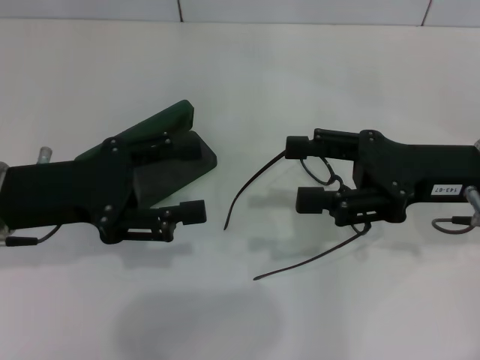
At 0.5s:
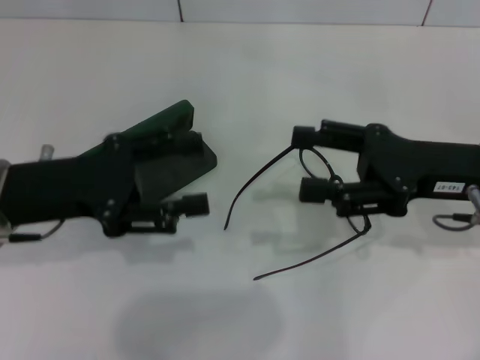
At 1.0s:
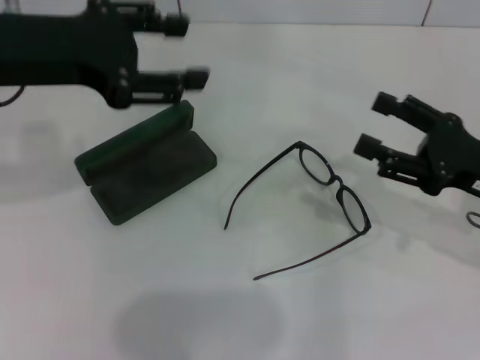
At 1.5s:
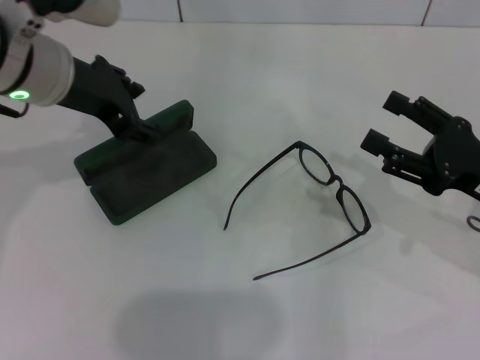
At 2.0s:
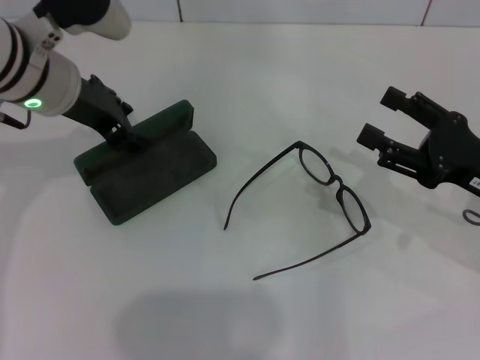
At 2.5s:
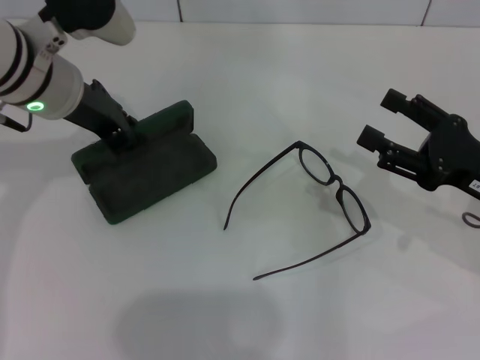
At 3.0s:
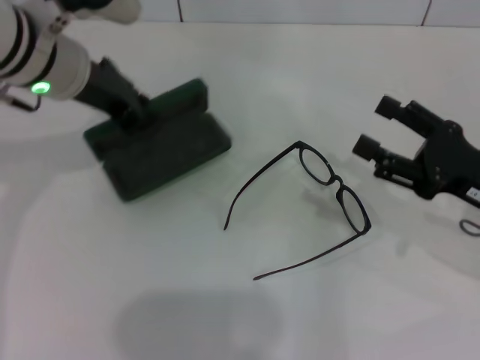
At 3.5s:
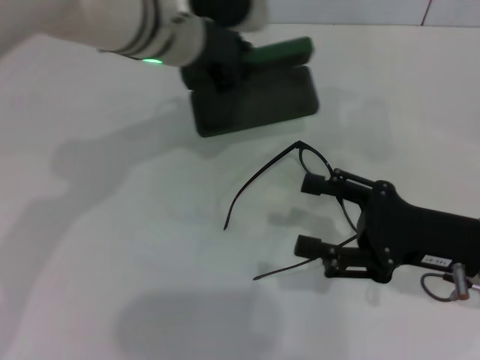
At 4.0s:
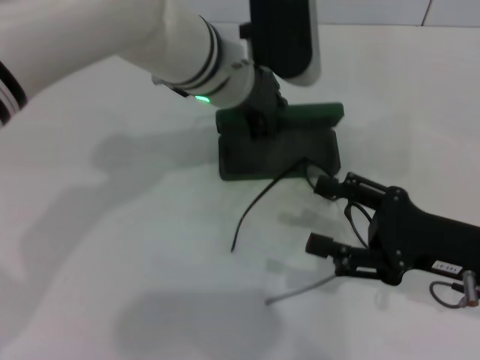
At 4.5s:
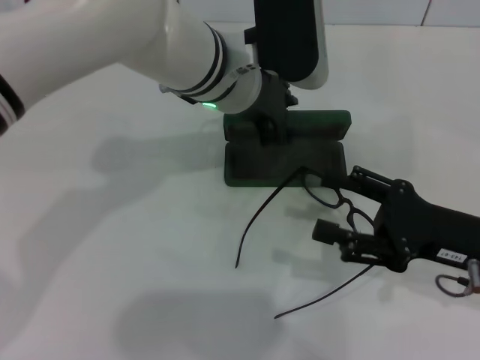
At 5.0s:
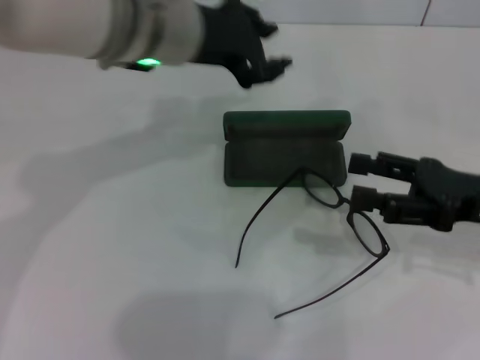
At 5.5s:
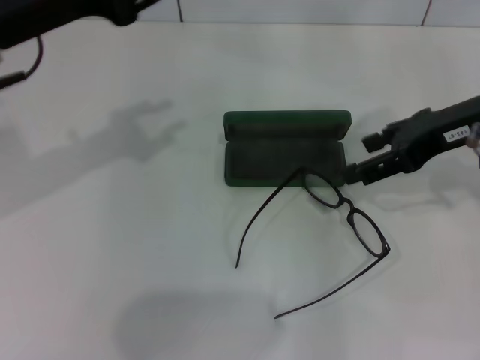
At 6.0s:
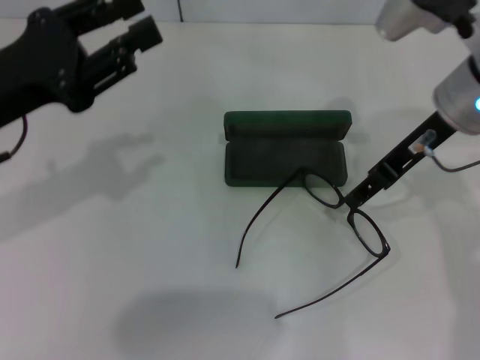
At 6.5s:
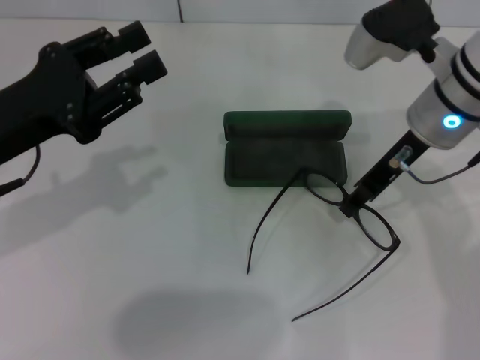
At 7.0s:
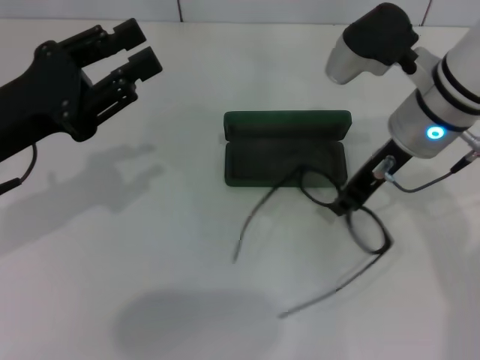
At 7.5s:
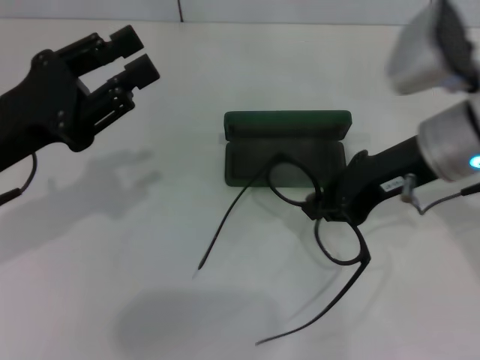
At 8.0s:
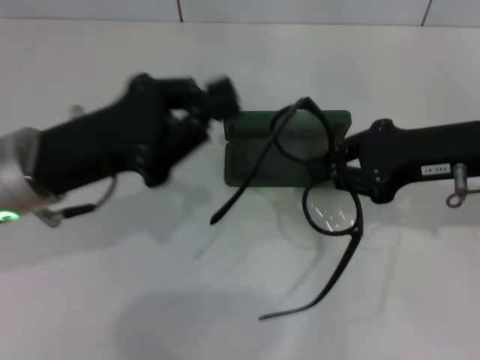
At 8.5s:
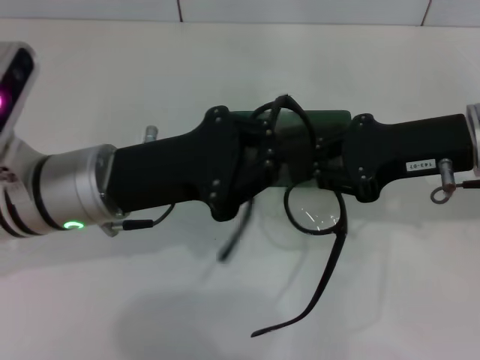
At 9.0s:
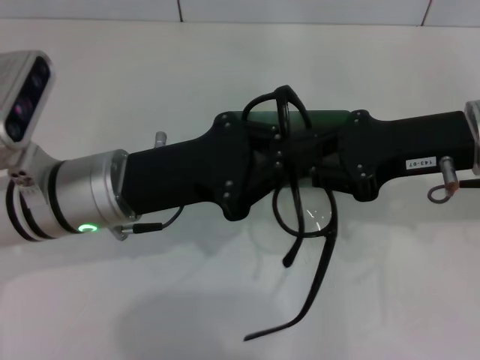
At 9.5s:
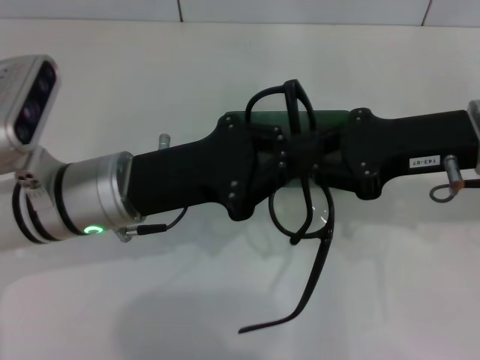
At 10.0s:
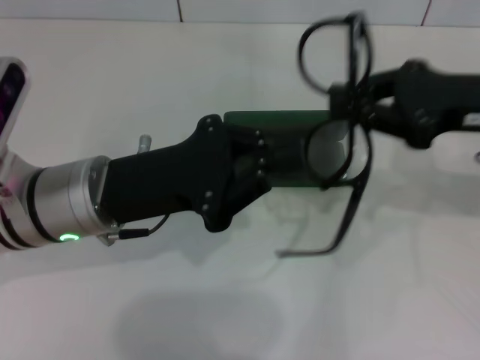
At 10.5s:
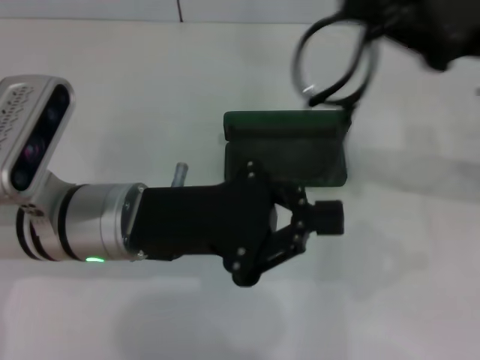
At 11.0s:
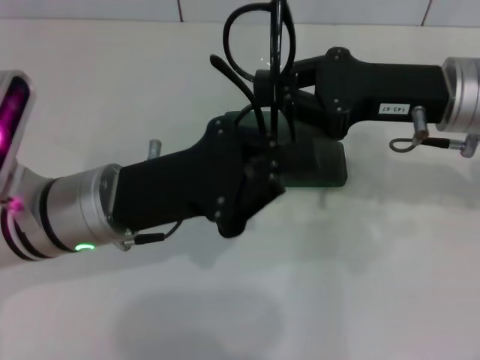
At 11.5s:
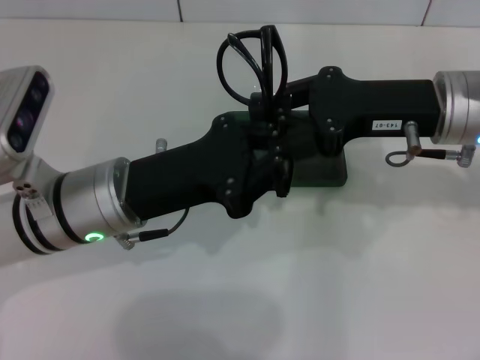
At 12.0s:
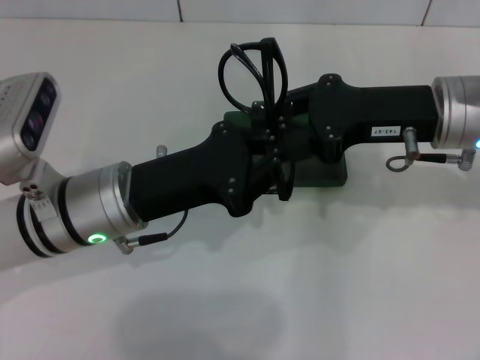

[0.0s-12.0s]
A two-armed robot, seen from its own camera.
Step, 0.0s to 2.0s: Grab the glasses case with your left hand.
Step, 3.0s to 4.5s: Place the glasses case in the center of the table with your left hand.
Step, 5.0s to 6.5s: Grab the eyeglass frame with your right hand.
Step, 7.5s to 11.0s: Fold the frame with your left hand.
0.0s to 2.0s: The left gripper goes roughly 15 cm forward, to the right and upward, while the right gripper is displaced to the right and downward by roughly 5 cm.
2.0s to 4.0s: The right gripper shifts by approximately 5 cm, while the left gripper moves to the right, approximately 15 cm, and closes.
4.0s to 6.0s: The left gripper travels to the left and backward by approximately 25 cm. The right gripper heads forward, upward and to the left, covering roughly 20 cm.
6.0s to 8.0s: The left gripper moves to the right, approximately 5 cm; the right gripper is displaced backward by roughly 5 cm, and closes.
10.0s to 12.0s: The right gripper goes some 5 cm to the left.

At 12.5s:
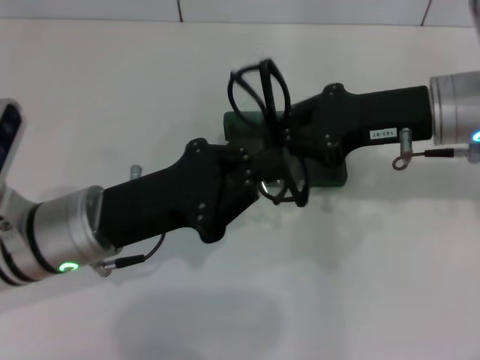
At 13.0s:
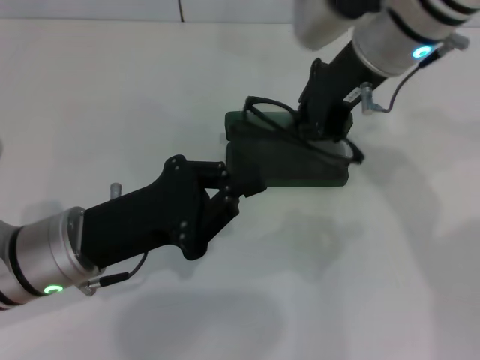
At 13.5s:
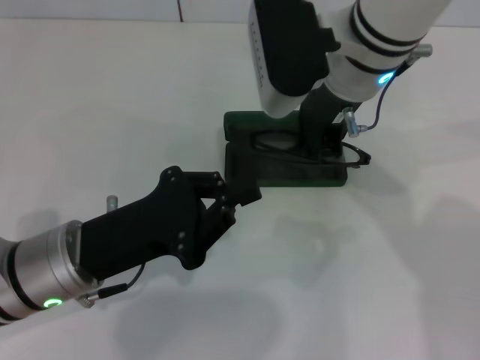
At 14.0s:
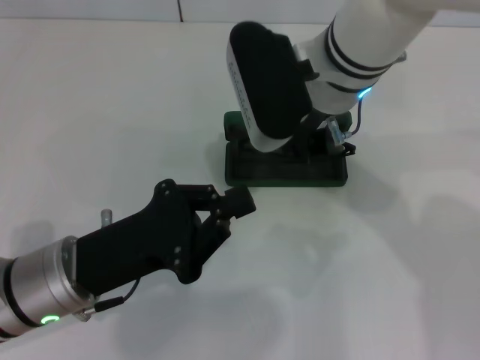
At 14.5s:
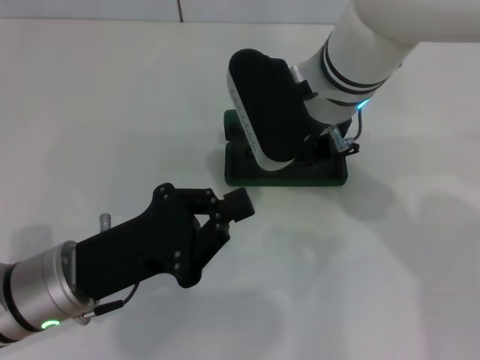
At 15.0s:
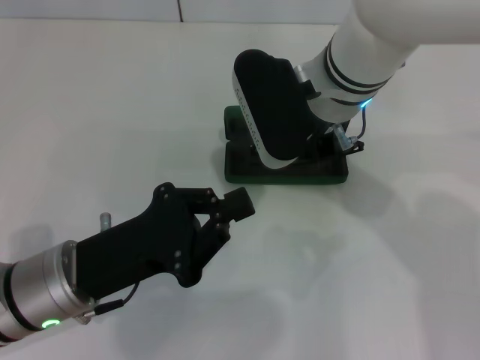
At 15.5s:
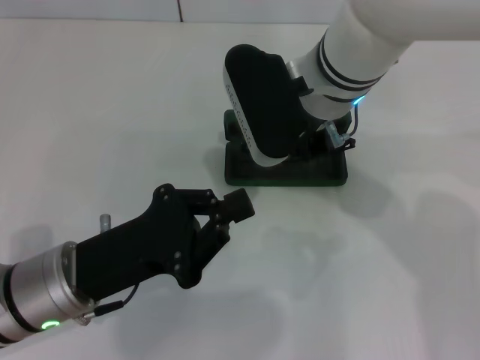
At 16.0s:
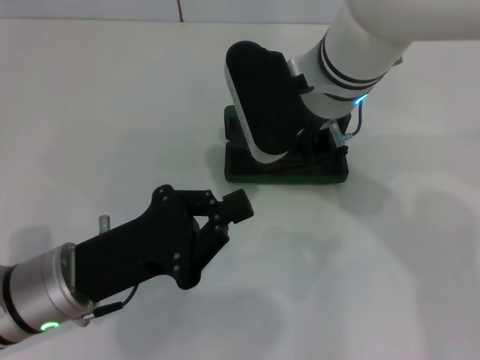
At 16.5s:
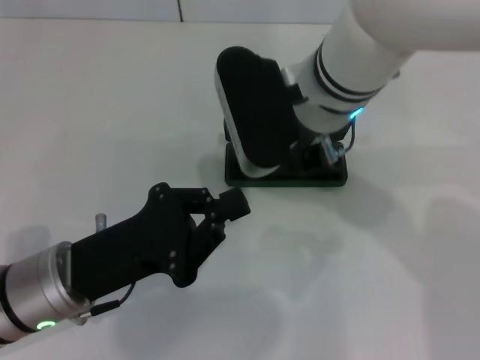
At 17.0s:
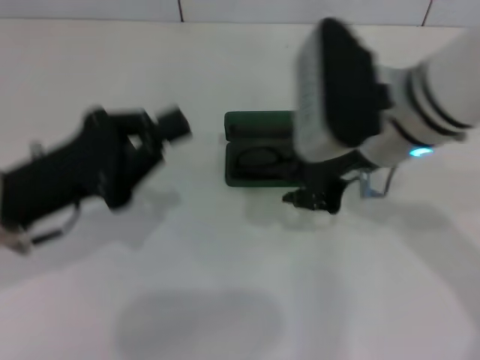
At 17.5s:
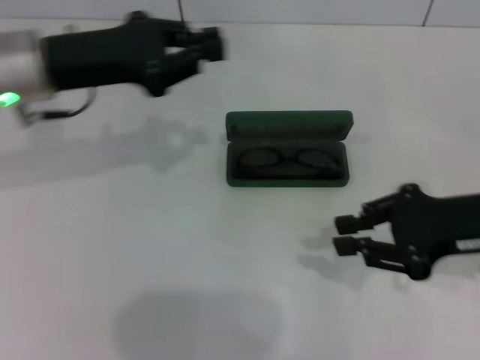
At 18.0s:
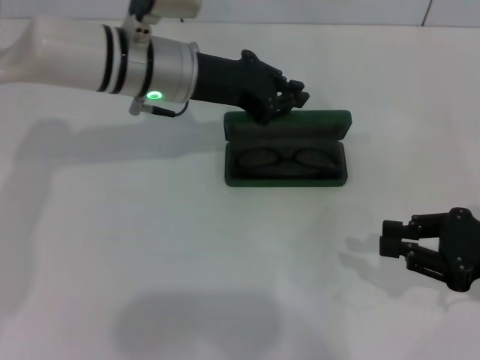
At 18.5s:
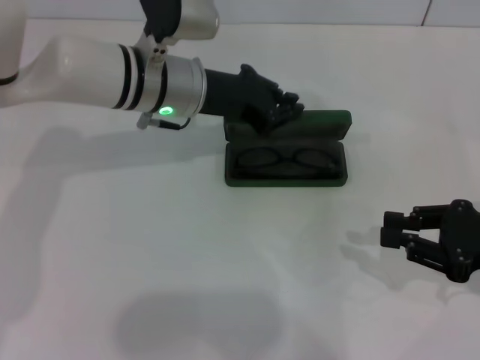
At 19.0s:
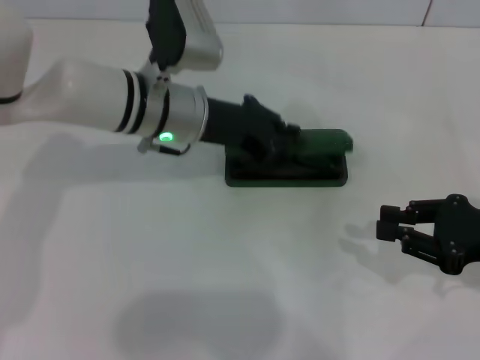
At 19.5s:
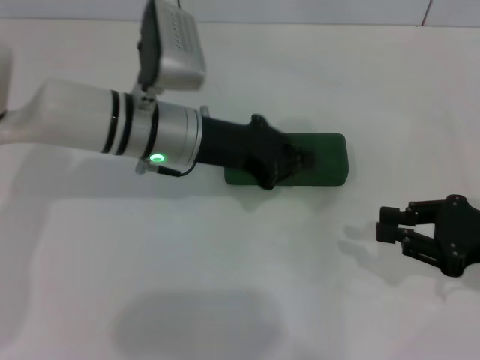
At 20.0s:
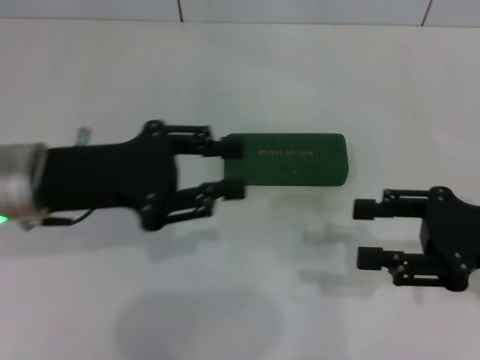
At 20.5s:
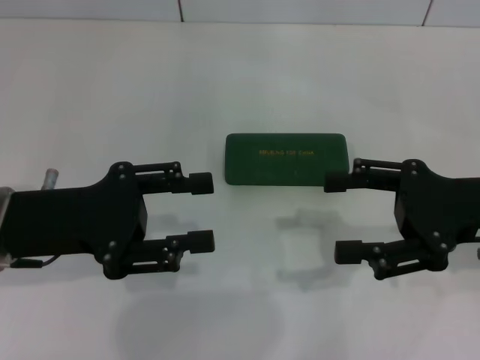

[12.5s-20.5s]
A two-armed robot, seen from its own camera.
Step, 12.5s to 16.0s: Put the glasses into the case with your right hand.
Step, 16.5s to 19.0s: Close the glasses case with your left hand.
12.5s to 14.5s: The left gripper ends up approximately 5 cm from where it was, while the right gripper goes about 15 cm to the left.
14.5s to 16.5s: There are only small adjustments of the grippers.
16.5s to 18.5s: The left gripper goes roughly 20 cm forward and to the right. Meanwhile the right gripper shifts approximately 30 cm to the right and backward.
18.5s to 20.5s: The left gripper heads backward and to the left, covering roughly 20 cm, and opens its fingers; the right gripper is displaced to the left and upward by roughly 5 cm, and opens.

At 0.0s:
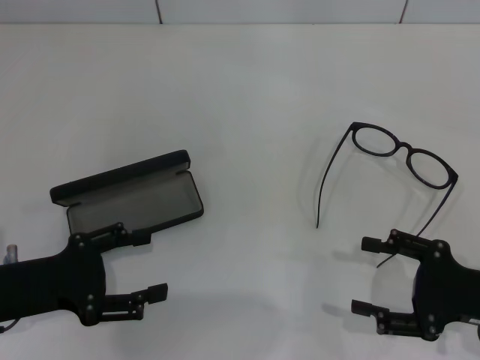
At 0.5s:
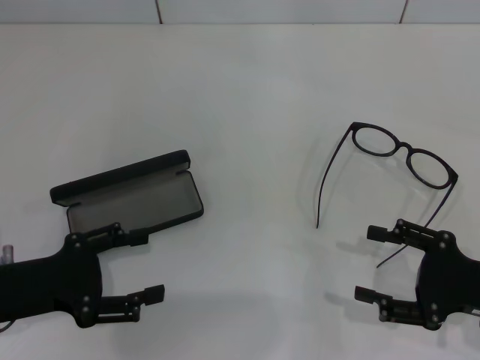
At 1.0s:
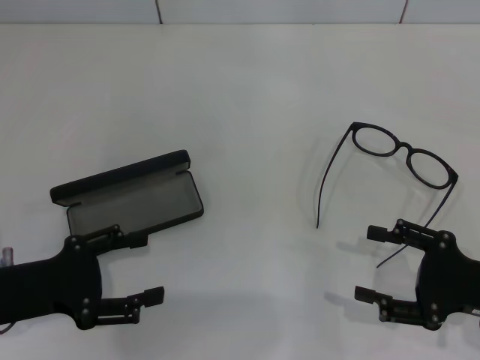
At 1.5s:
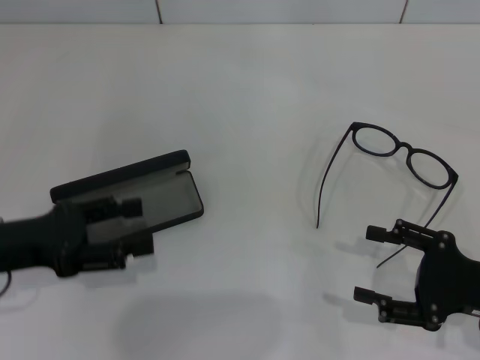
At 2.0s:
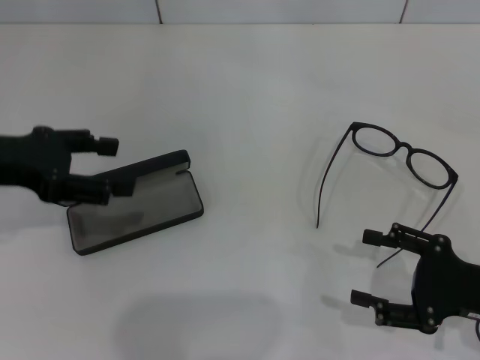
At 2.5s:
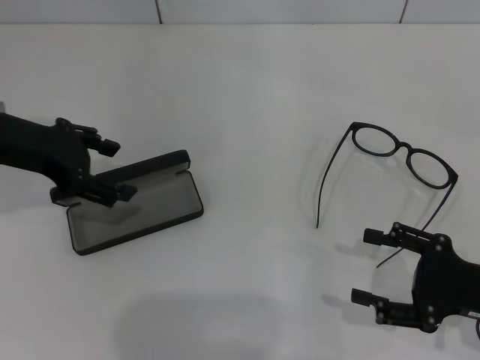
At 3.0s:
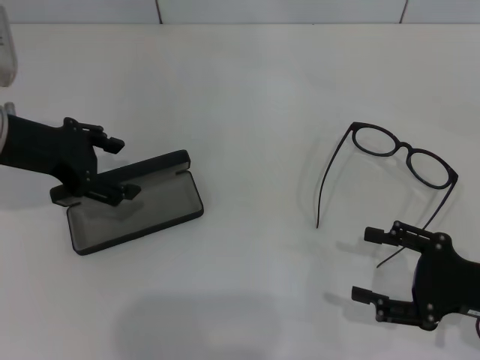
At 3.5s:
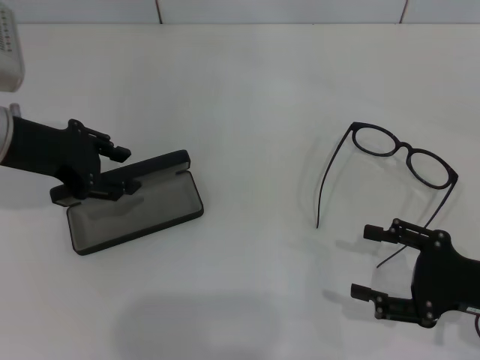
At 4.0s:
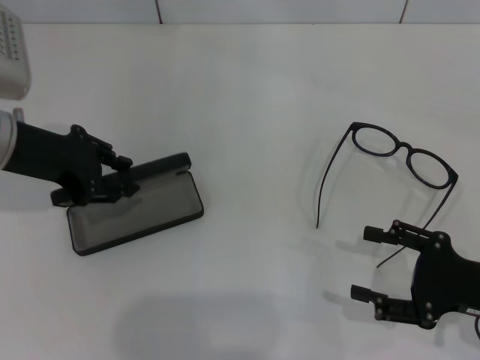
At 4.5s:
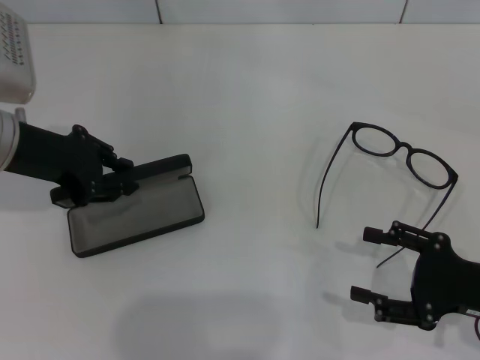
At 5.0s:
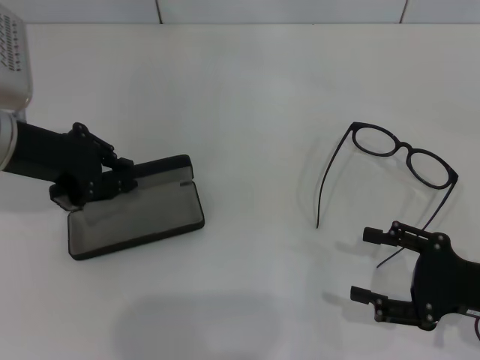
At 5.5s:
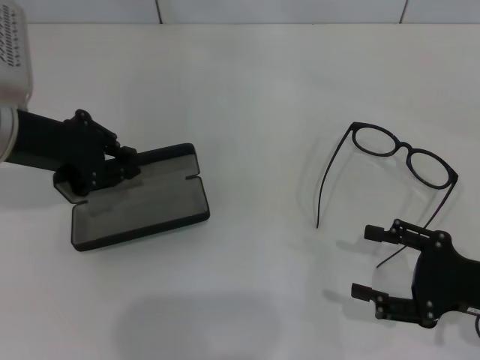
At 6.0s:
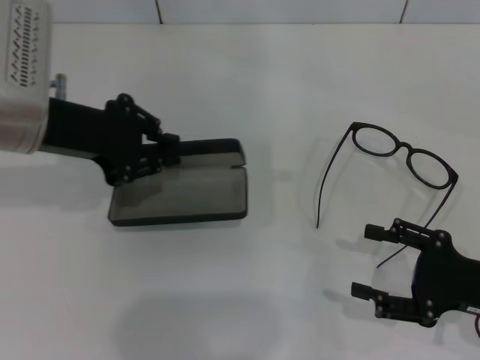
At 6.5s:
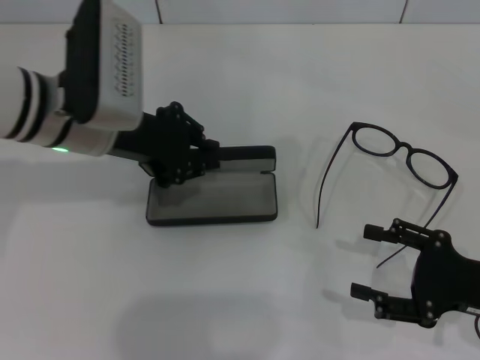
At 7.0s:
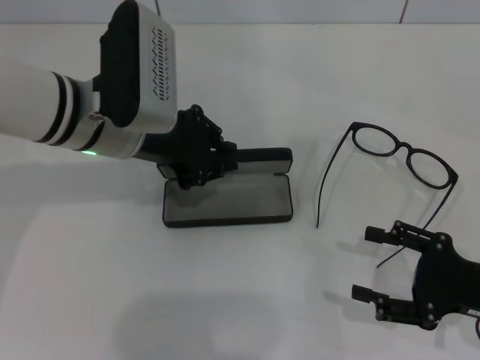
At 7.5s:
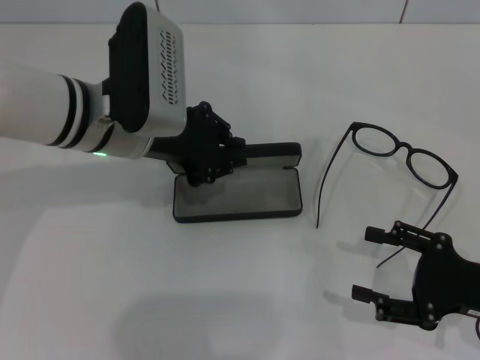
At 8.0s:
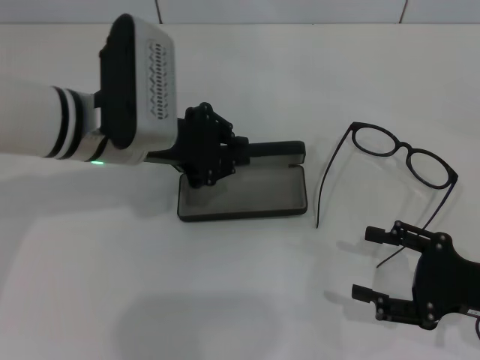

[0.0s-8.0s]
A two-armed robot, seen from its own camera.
Step, 0.0s to 4.5s: Grab the glasses case with your left hand.
0.0s to 2.0s: The left gripper goes some 15 cm upward and forward.
2.0s to 4.0s: The left gripper moves some 5 cm, and closes.
6.0s to 8.0s: The left gripper goes some 5 cm to the right.
